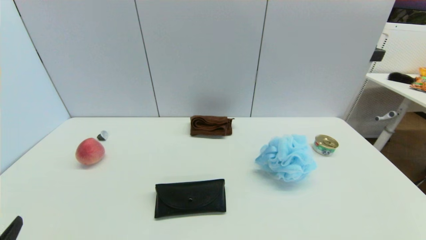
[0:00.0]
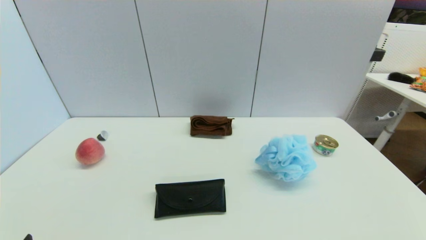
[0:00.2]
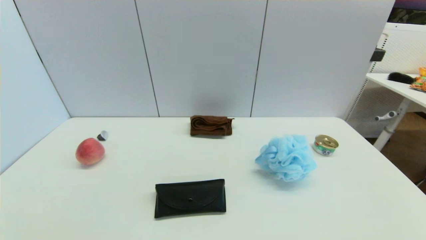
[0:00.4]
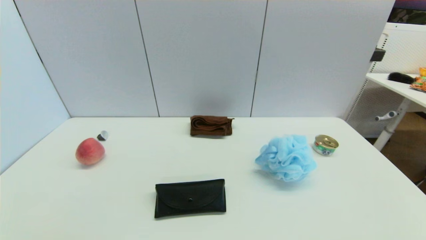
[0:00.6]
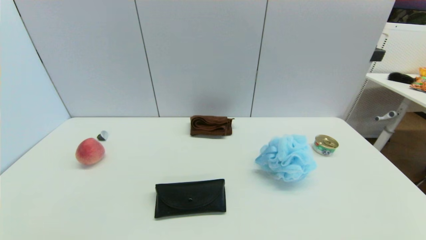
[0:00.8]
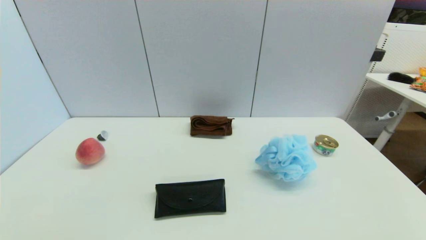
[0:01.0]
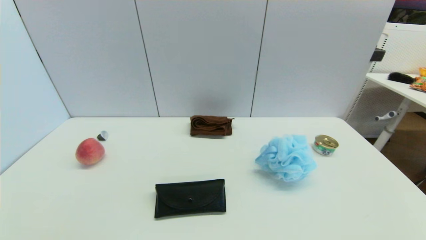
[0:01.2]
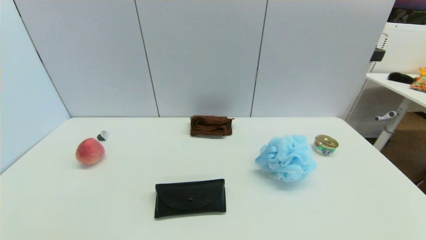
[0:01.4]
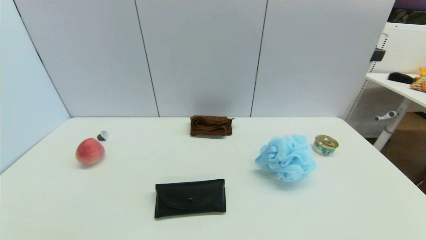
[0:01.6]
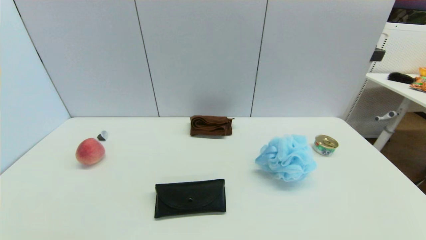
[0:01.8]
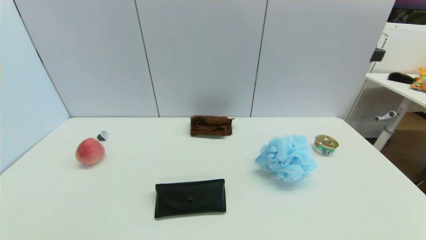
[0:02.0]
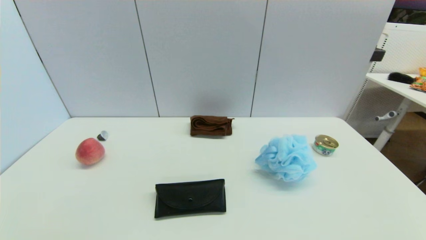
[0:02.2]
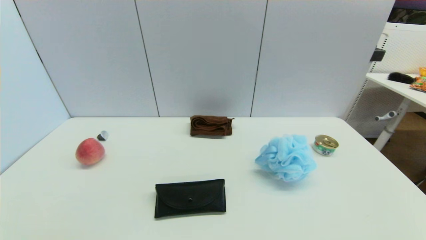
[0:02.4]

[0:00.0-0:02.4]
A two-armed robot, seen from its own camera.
0:01.2 to 0:02.4: Both grippers stay about where they are.
